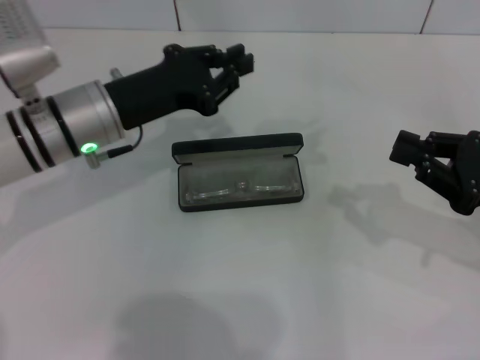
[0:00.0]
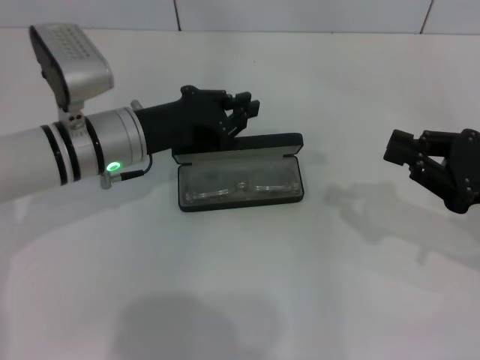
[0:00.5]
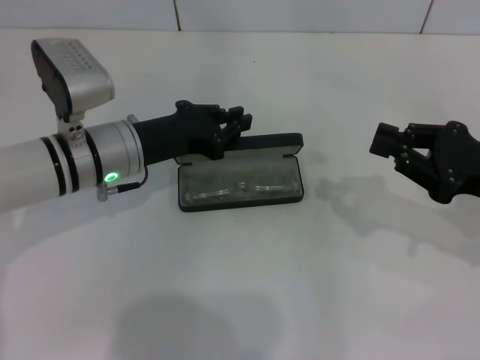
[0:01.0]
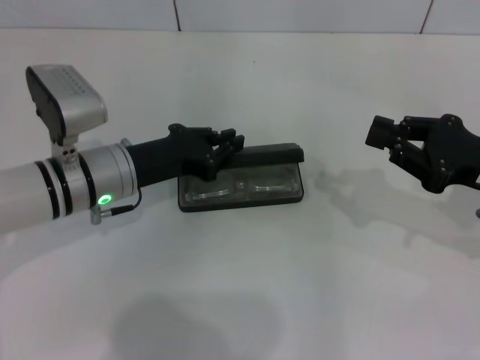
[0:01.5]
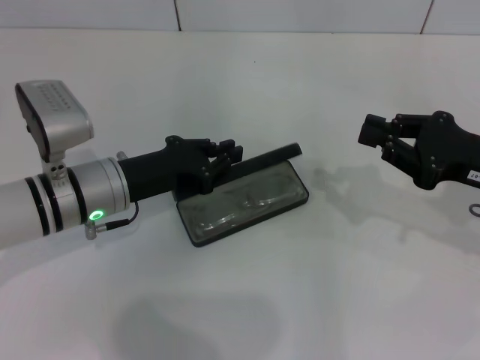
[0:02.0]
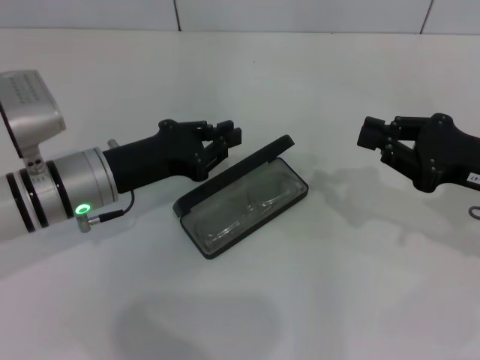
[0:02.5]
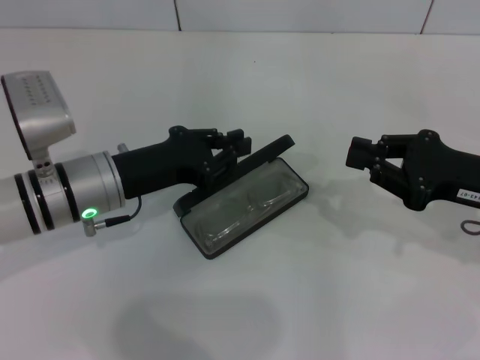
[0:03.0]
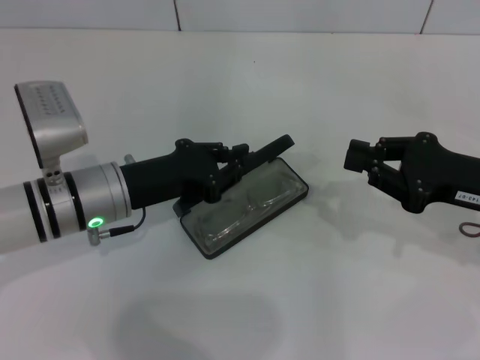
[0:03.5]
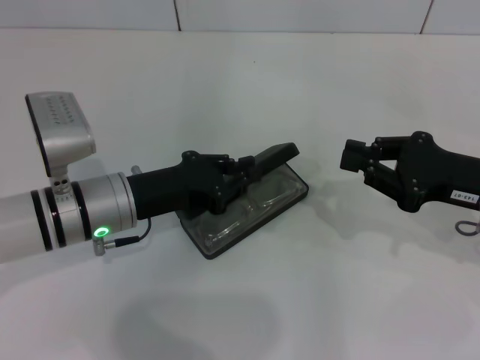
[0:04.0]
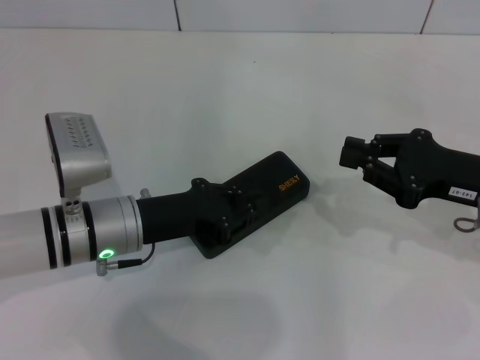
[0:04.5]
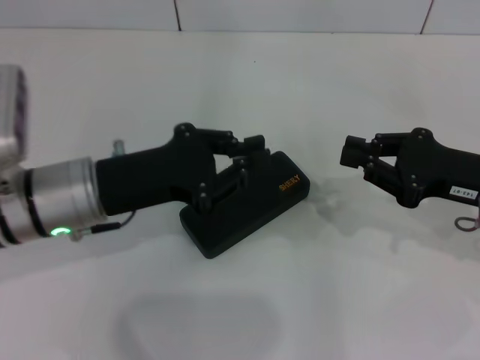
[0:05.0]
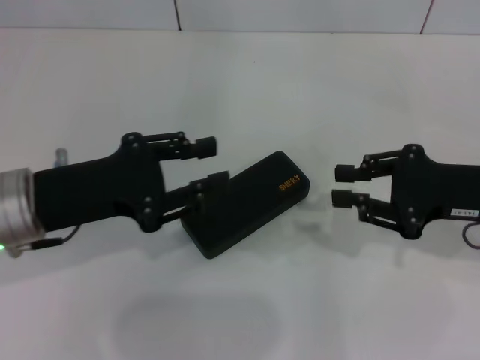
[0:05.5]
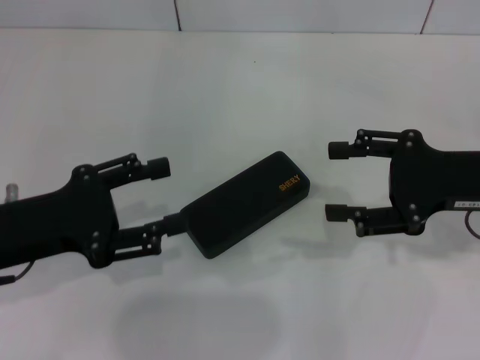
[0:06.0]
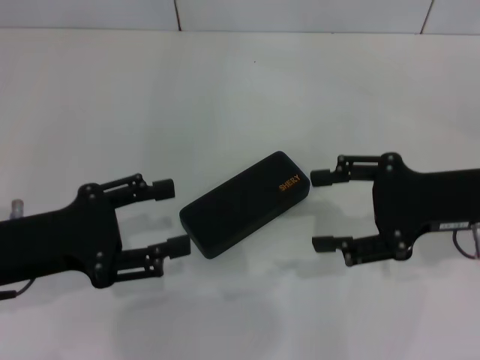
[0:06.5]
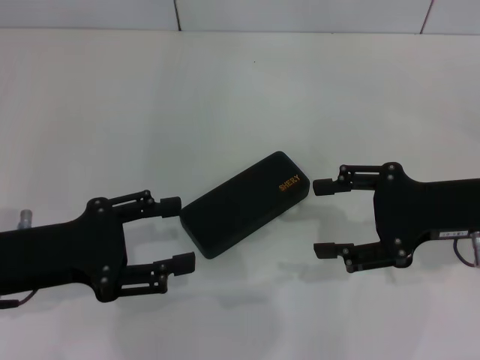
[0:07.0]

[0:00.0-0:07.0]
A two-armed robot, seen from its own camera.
Step, 0:00.0 to 0:04.0: Close the glasses case with your left hand.
0:00.0 to 0:02.0: The left gripper moves downward, some 5 cm.
0:02.0 to 0:03.5: There are only small adjustments of the grippers.
0:03.5 to 0:05.0: The left gripper moves some 5 cm.
0:05.0 to 0:07.0: The left gripper moves to the left and backward, some 10 cm, and opens up, while the right gripper opens its fingers.
